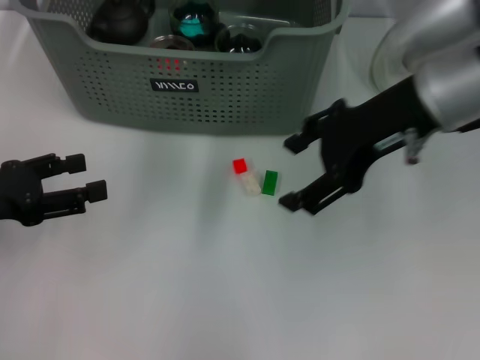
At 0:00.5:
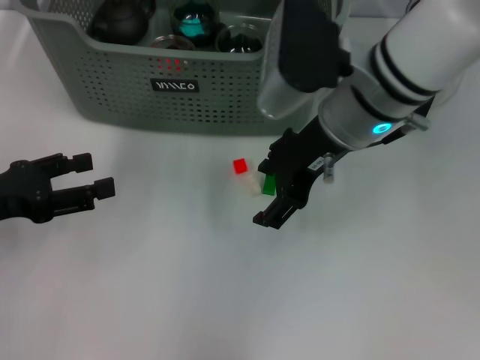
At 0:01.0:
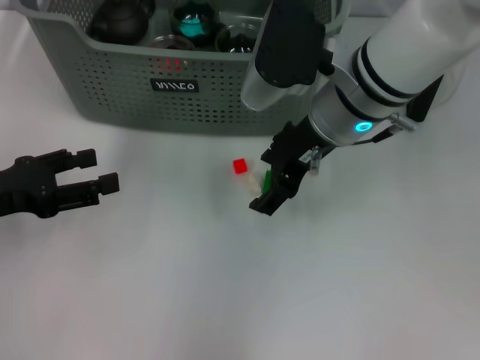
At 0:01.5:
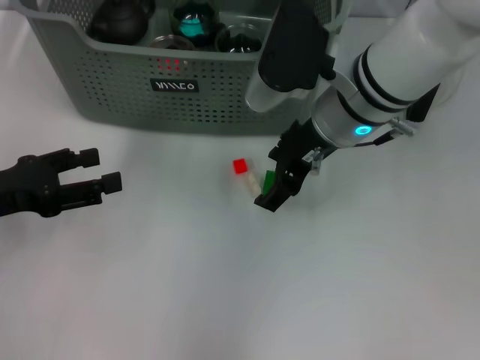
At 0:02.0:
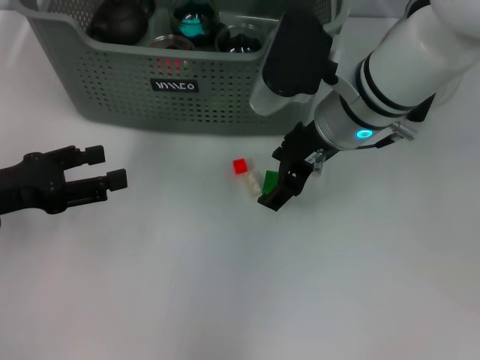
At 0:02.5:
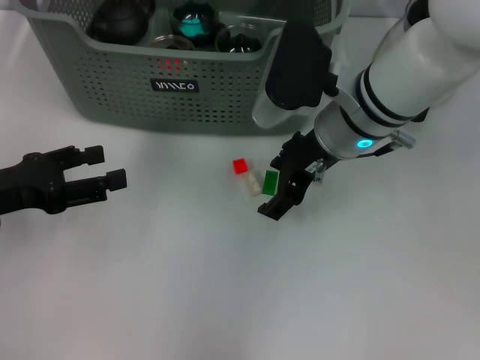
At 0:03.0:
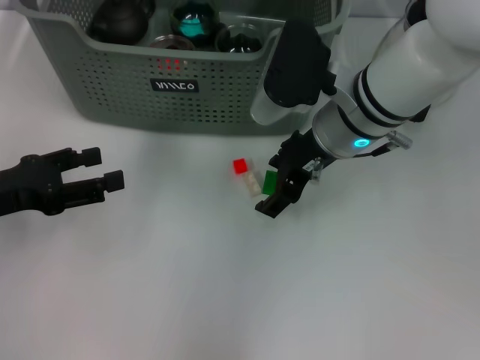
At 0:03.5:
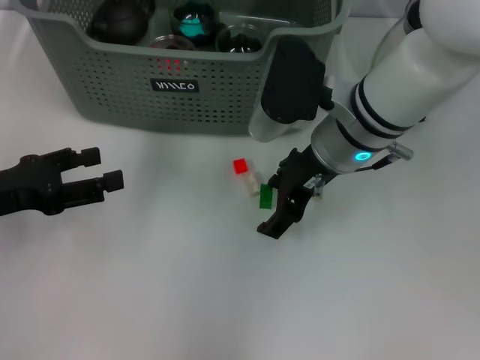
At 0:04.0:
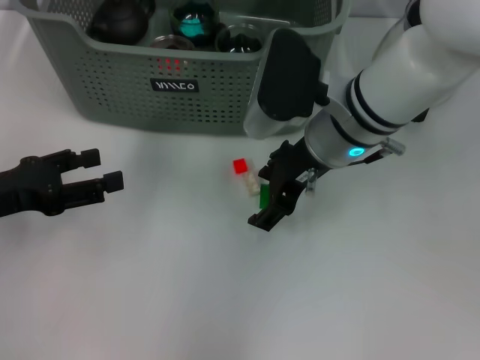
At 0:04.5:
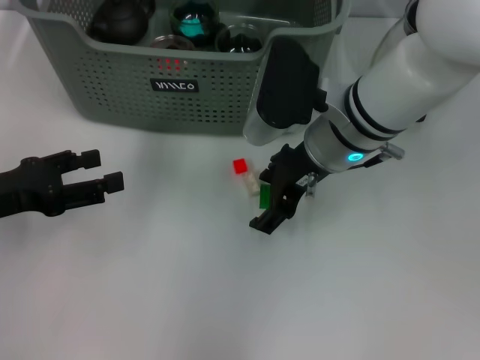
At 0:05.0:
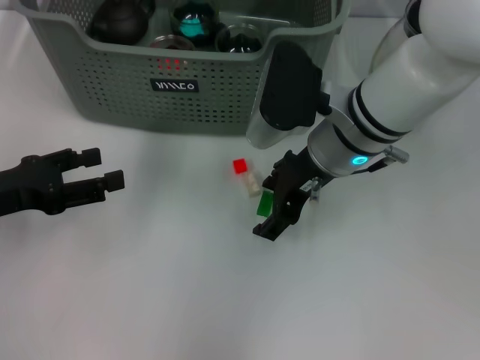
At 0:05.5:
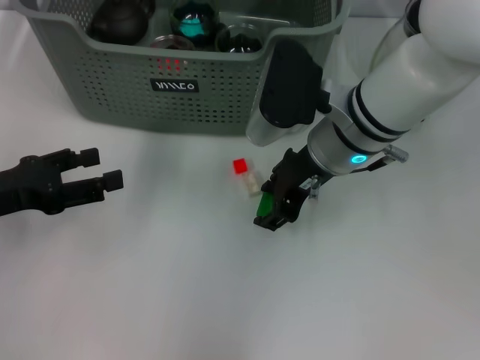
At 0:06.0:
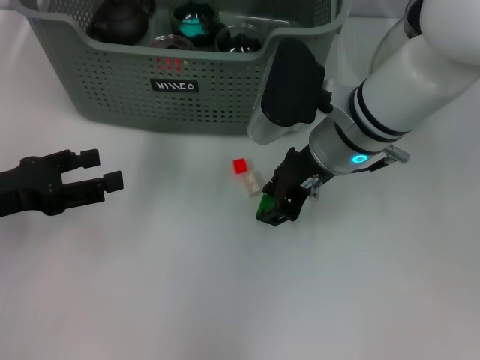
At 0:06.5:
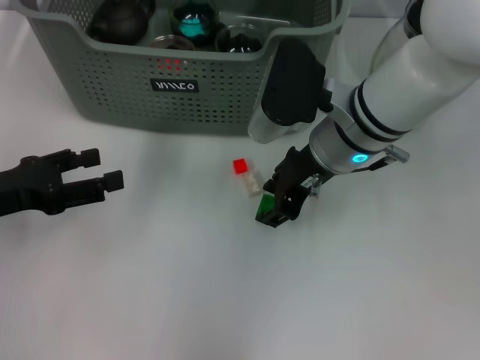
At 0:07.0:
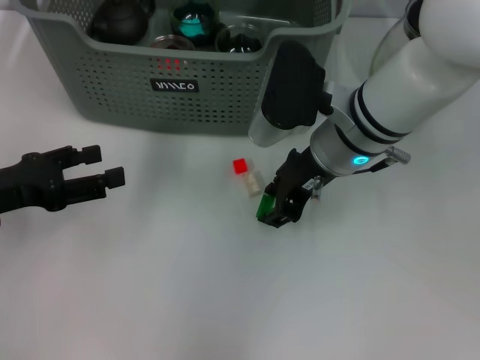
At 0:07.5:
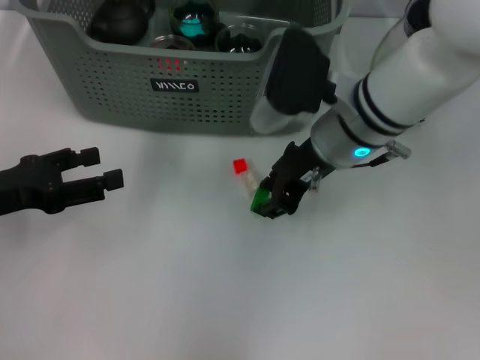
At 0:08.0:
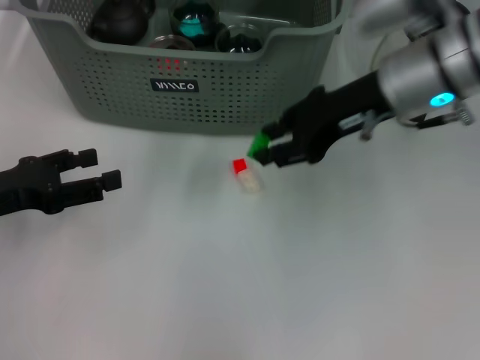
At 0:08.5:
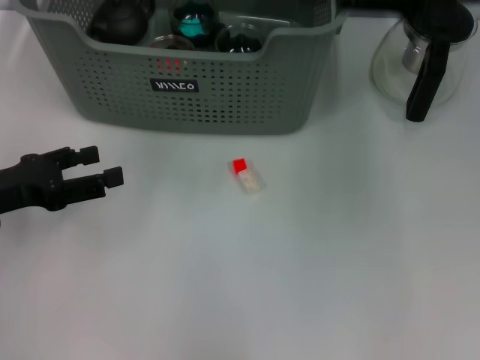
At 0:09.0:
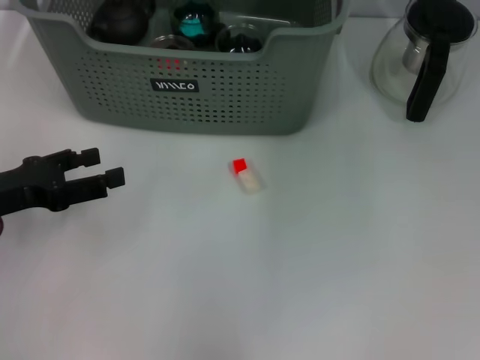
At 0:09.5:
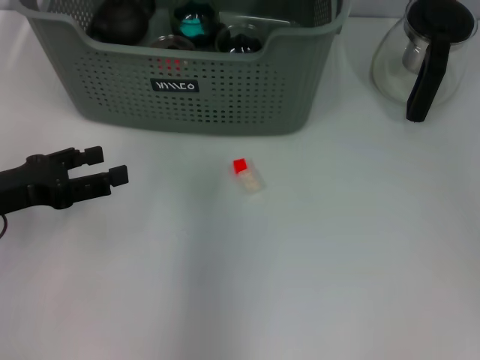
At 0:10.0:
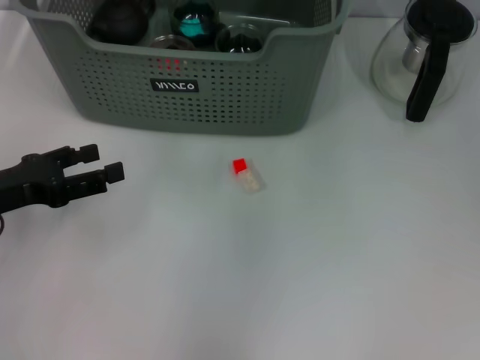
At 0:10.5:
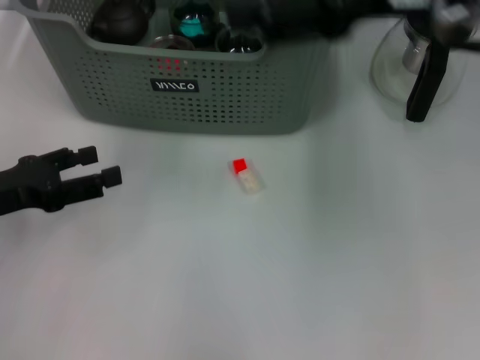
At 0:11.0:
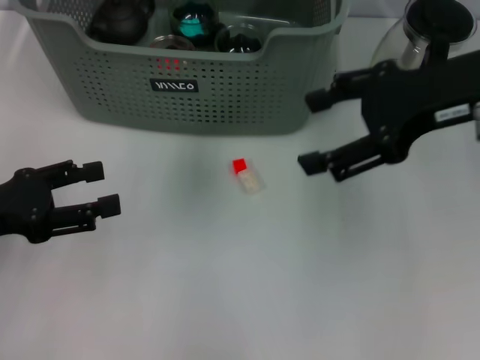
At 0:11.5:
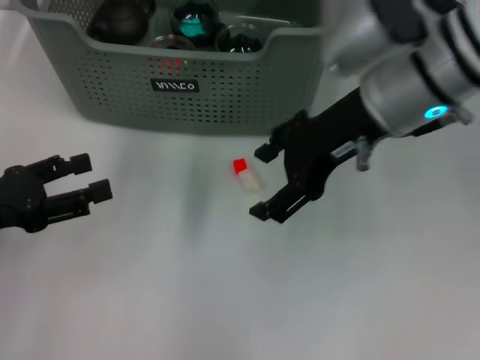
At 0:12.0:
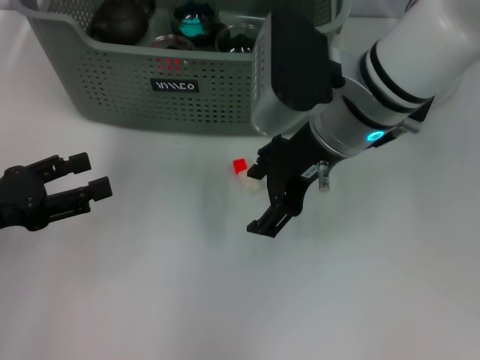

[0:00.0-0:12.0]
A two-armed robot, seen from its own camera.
Task of the whole recording: pick up the teacup on the table and place it into the storage bin, pick up the block on the table and place it into the storage bin.
Step, 0:00.0 to 0:07.0: Grasp the green block with left gripper.
0:00.0 to 0:02.0: The right gripper goes approximately 10 cm downward and to the left.
0:02.0 to 0:04.0: There are only small adjustments of the grippers.
0:04.0 to 0:06.0: The right gripper closes.
0:06.0 to 0:08.0: The right gripper moves upward and to the right, approximately 10 cm.
0:08.0 to 0:10.0: The right gripper travels upward, forward and to the left by some 15 cm, and opens up.
0:10.0 to 0:12.0: The right gripper is displaced downward and backward by roughly 15 cm, and reaches some 10 cm to the right, then returns.

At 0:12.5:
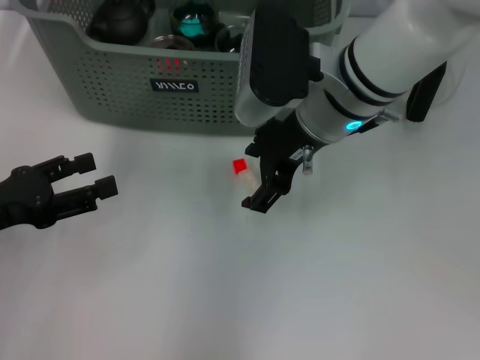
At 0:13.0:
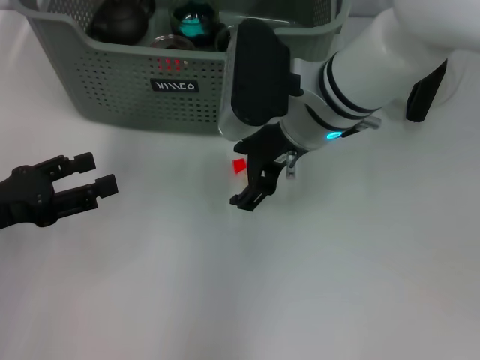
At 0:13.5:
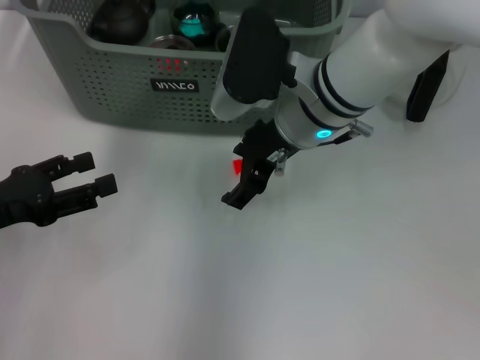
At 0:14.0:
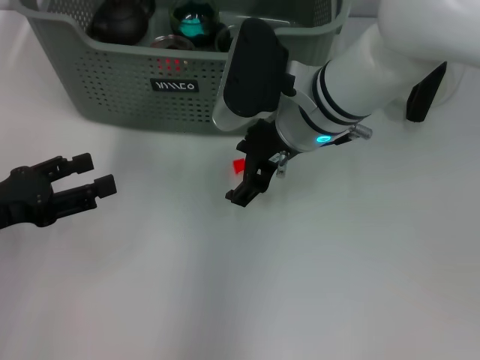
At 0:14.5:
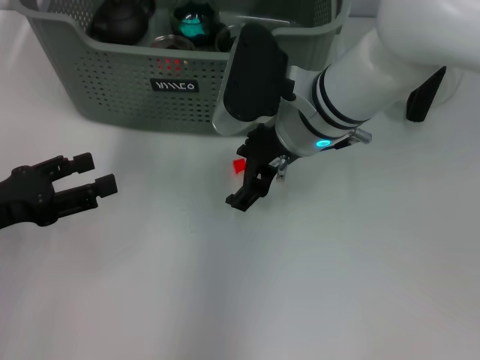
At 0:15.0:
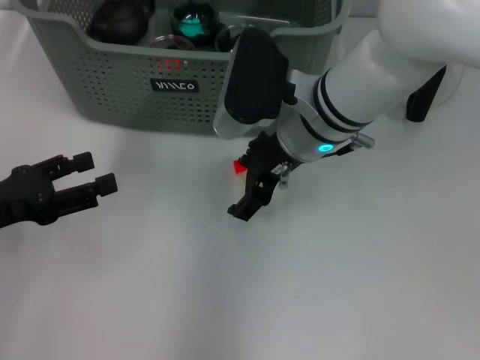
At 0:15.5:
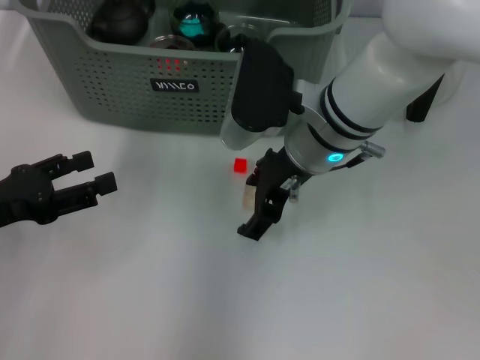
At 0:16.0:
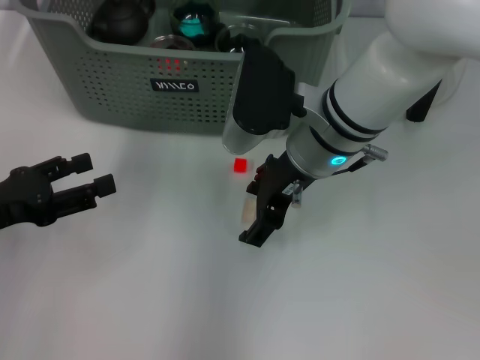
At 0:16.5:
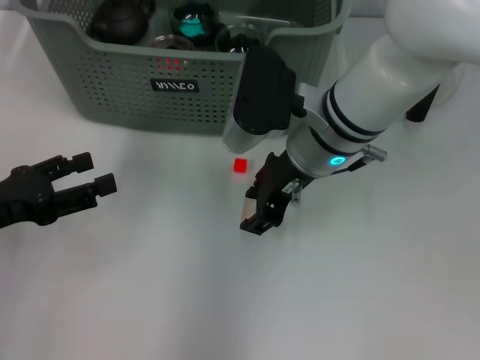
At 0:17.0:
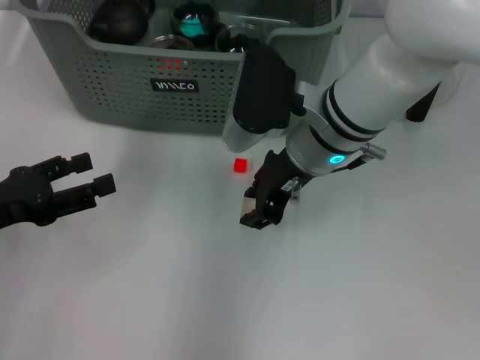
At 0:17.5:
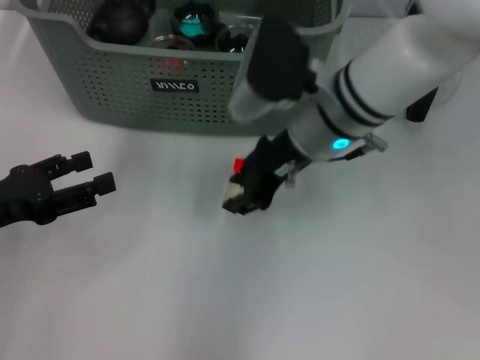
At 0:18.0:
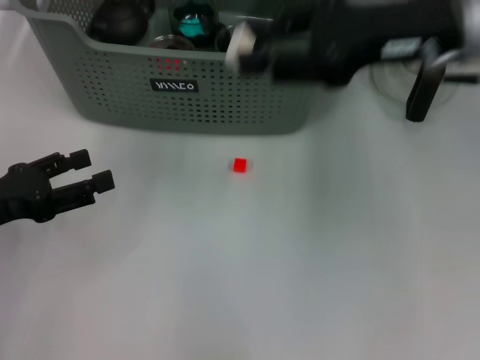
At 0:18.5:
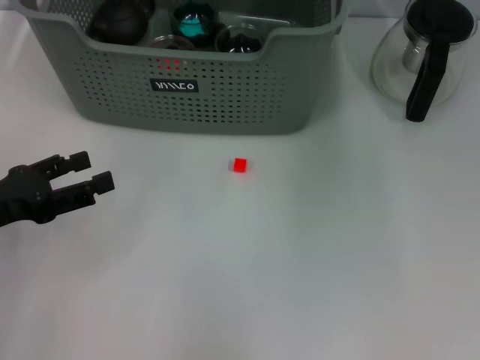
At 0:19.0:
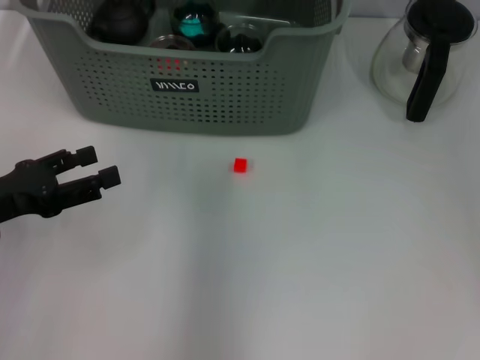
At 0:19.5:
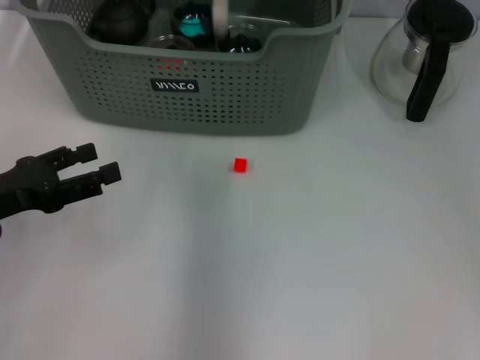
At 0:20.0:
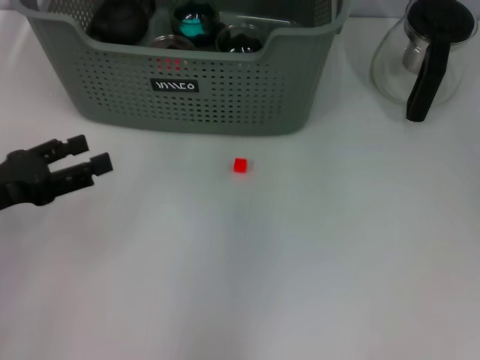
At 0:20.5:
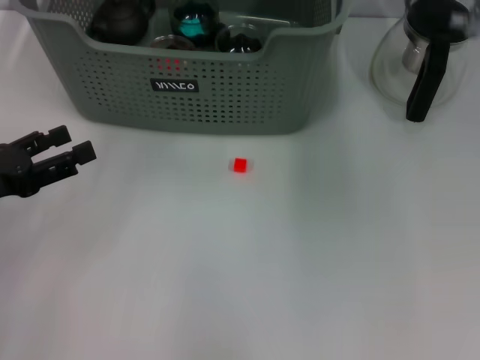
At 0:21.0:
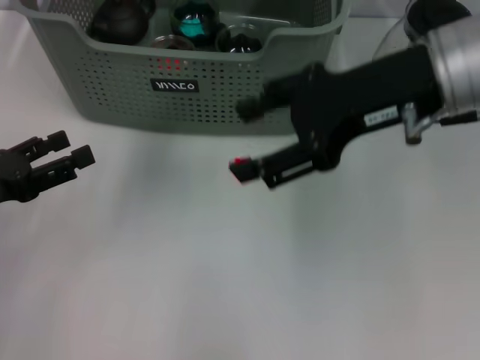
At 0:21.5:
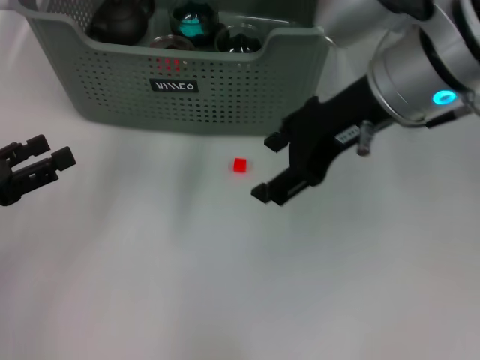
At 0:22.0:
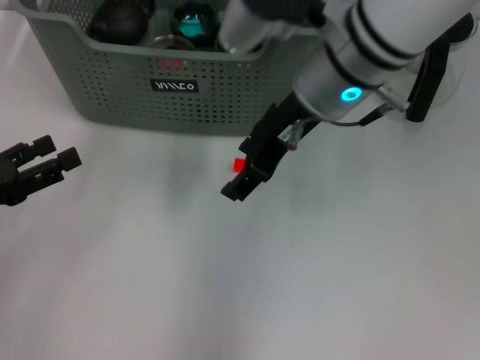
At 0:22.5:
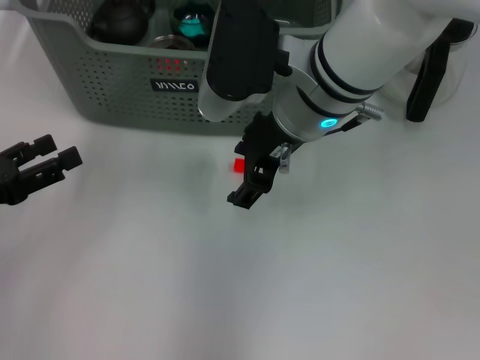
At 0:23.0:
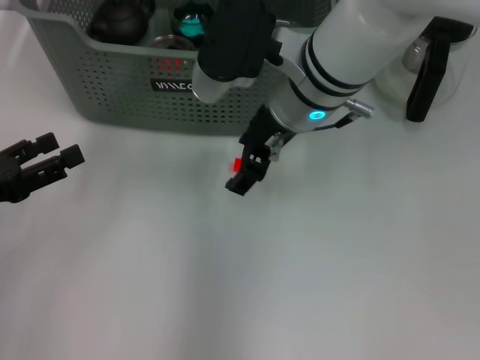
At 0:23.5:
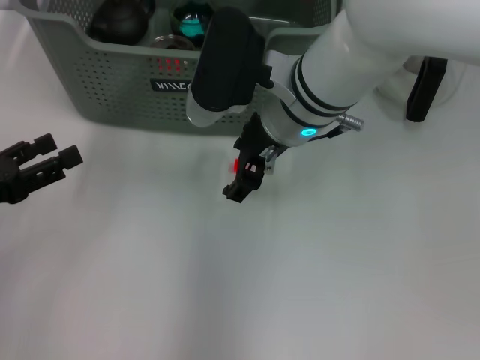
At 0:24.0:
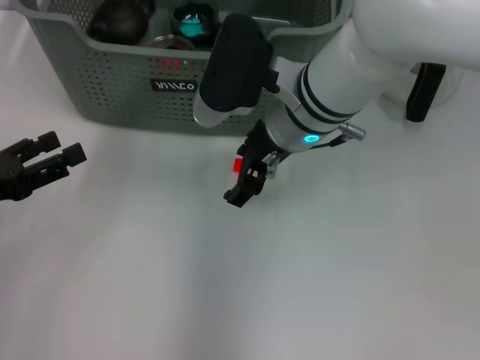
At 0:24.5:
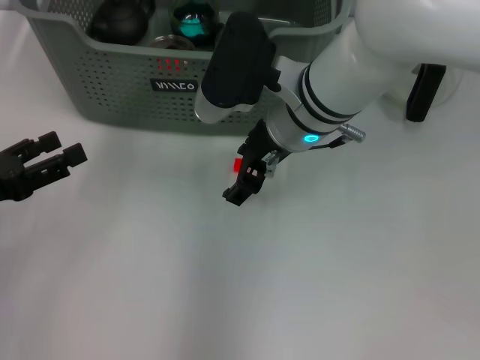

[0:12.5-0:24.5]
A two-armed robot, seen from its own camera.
Task of the whole recording: pick up the teacup on the table and place it into the storage bin, pick up the block on the table and place it into the storage bin.
Step, 0:12.5 to 0:17.0: Grasp the white block with right gripper.
Step, 0:17.5 to 0:20.0: Place the white block in the storage box with right gripper.
0:12.5 to 0:14.5: The grippers stay close to where they were, moving slightly.
0:14.5 to 0:16.5: The right gripper closes up.
0:16.5 to 0:18.5: The right gripper goes approximately 20 cm upward and to the right.
0:20.5 to 0:22.5: The right gripper heads to the left and downward, covering about 15 cm.
0:22.5 to 0:24.5: The grippers stay close to where they were, moving slightly.

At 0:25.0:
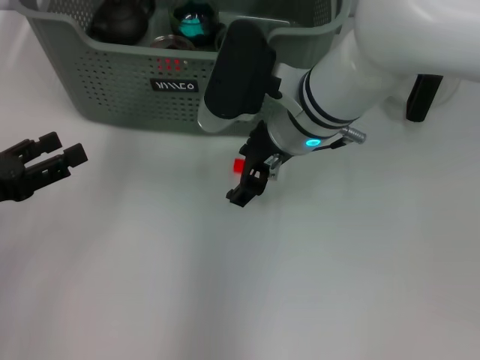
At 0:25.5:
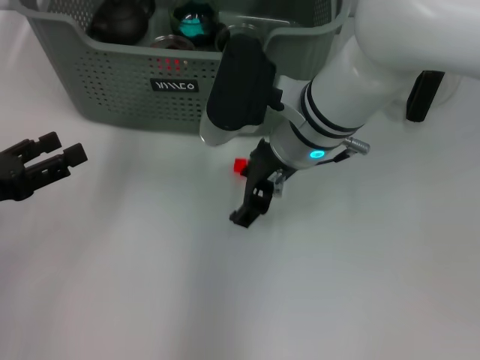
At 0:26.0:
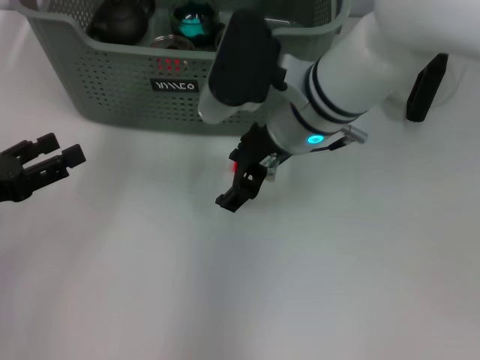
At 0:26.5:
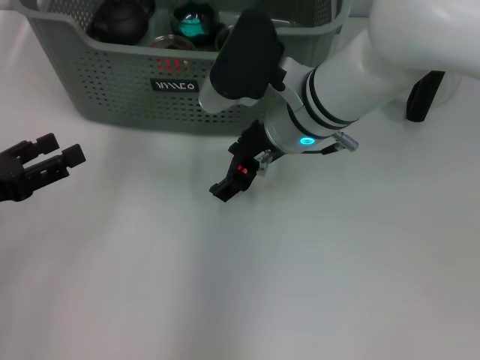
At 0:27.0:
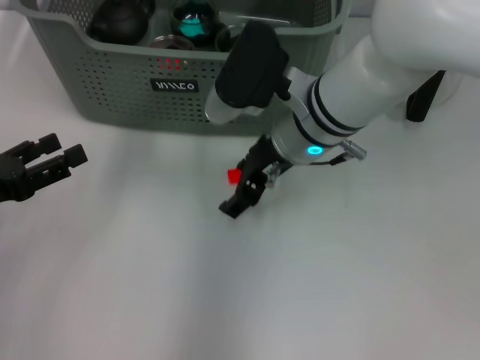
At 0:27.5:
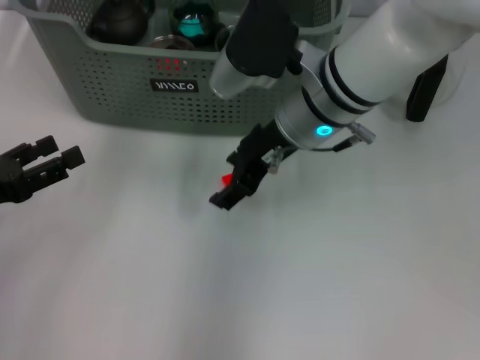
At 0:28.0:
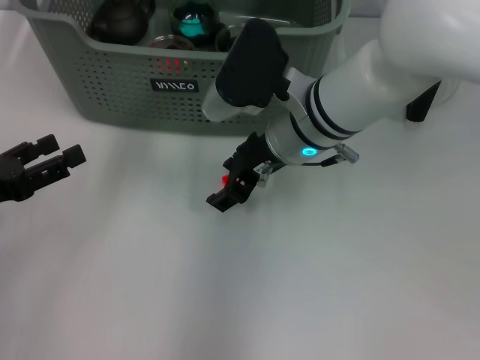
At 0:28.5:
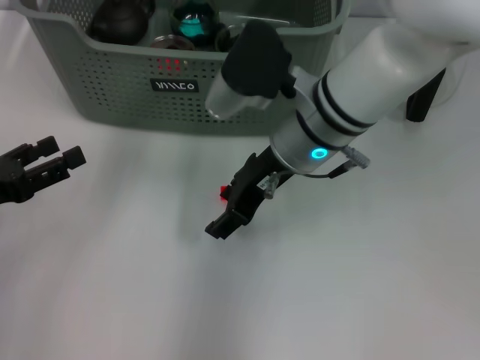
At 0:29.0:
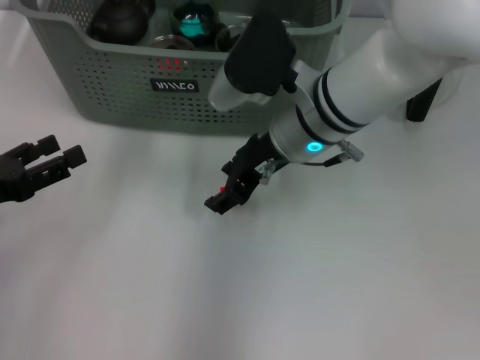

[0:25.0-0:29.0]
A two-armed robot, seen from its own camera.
Task of the whole recording: pick up the teacup on the table and place it into the storage bin, pick up the block on the table and place it into the storage bin.
0:25.0 to 0:29.0: The grippers move only a little.
